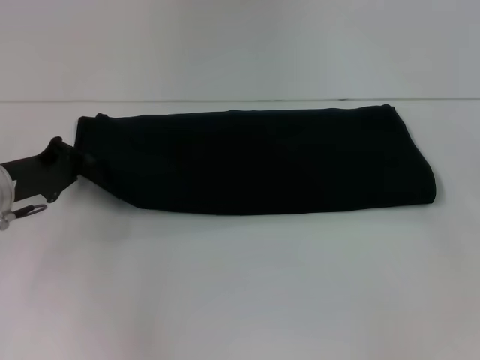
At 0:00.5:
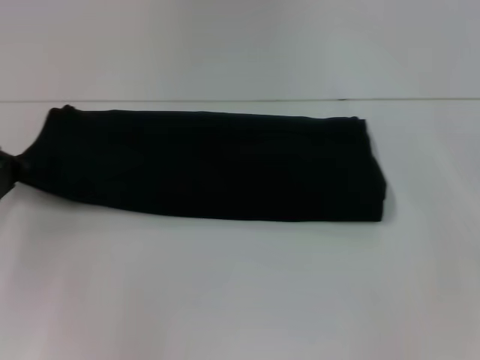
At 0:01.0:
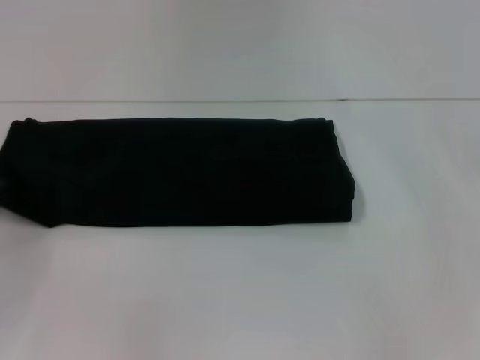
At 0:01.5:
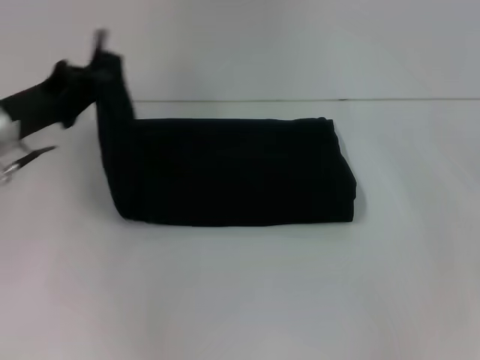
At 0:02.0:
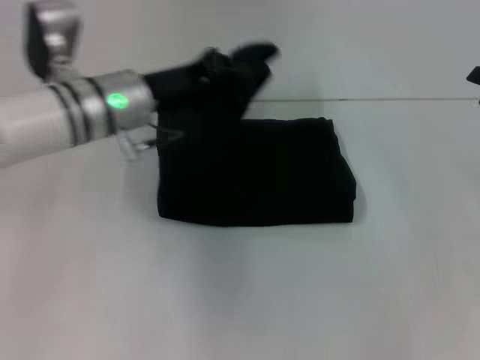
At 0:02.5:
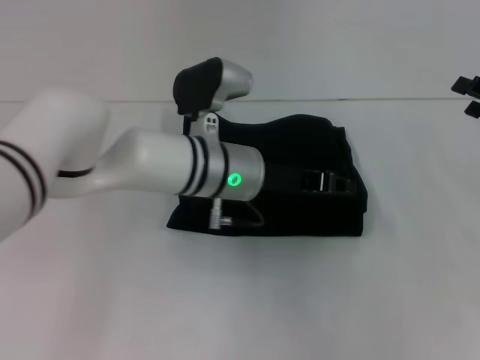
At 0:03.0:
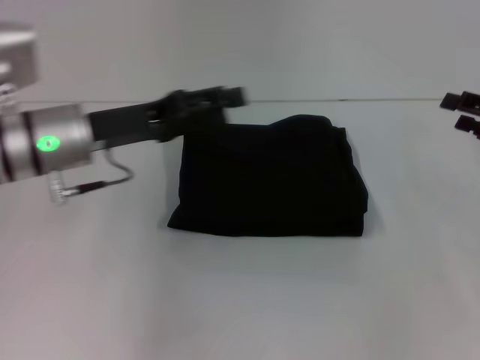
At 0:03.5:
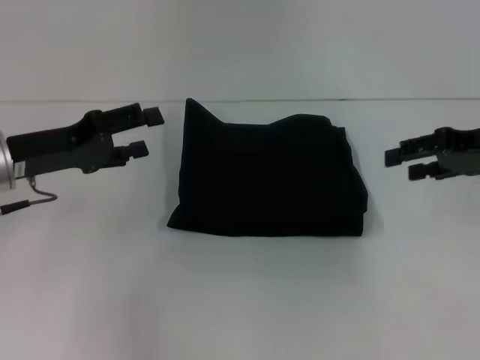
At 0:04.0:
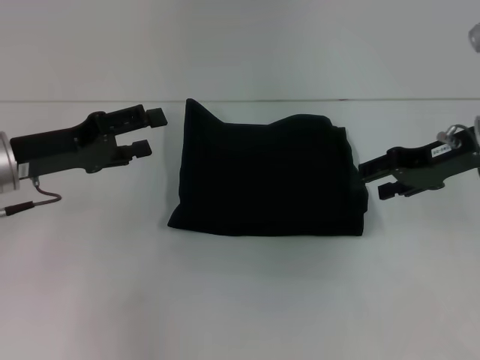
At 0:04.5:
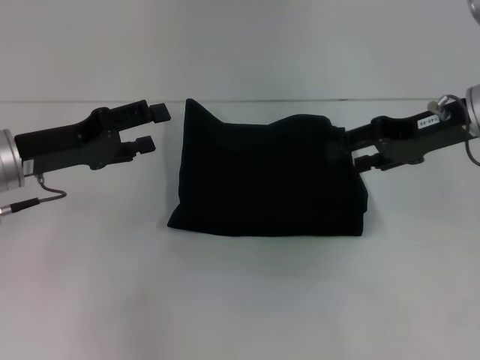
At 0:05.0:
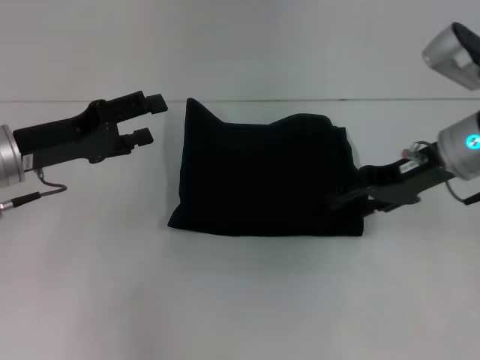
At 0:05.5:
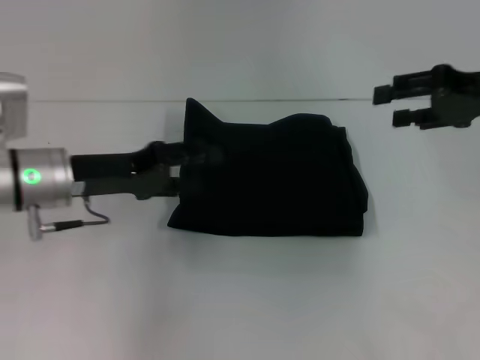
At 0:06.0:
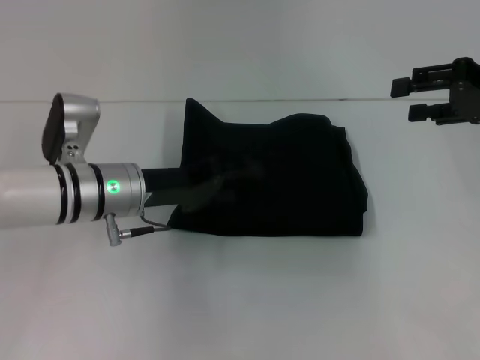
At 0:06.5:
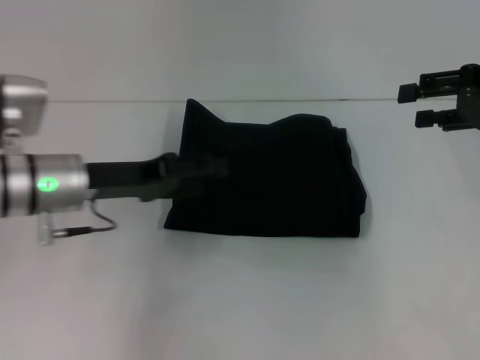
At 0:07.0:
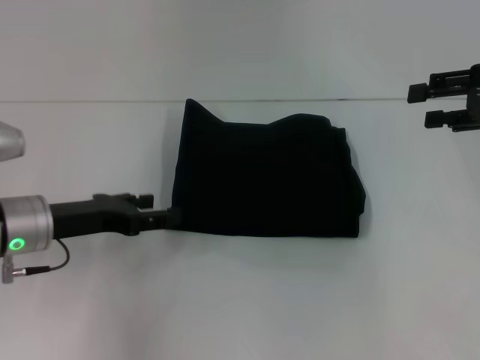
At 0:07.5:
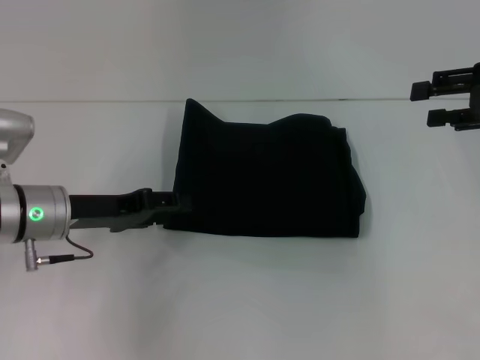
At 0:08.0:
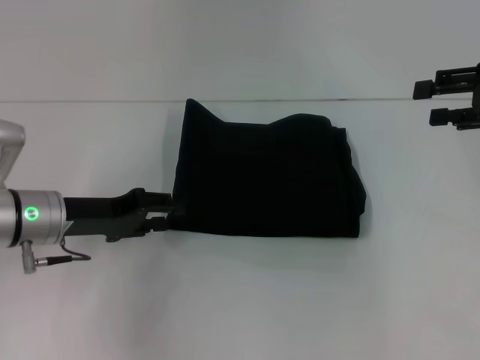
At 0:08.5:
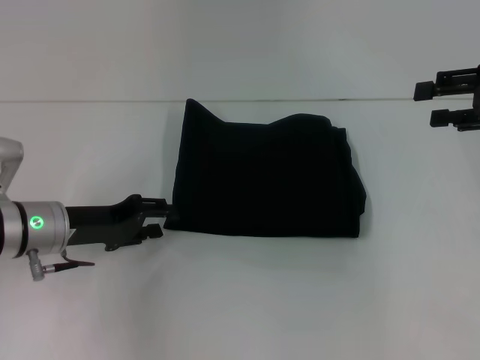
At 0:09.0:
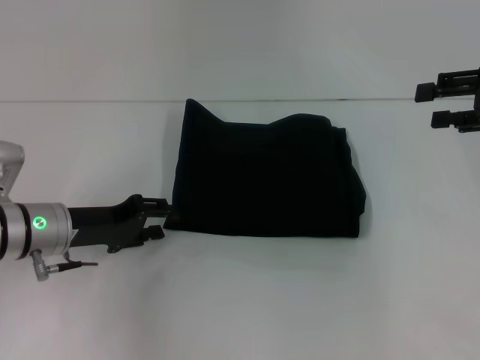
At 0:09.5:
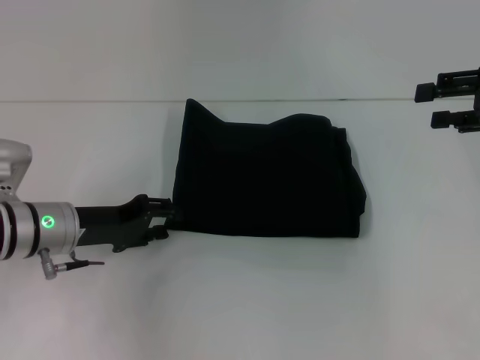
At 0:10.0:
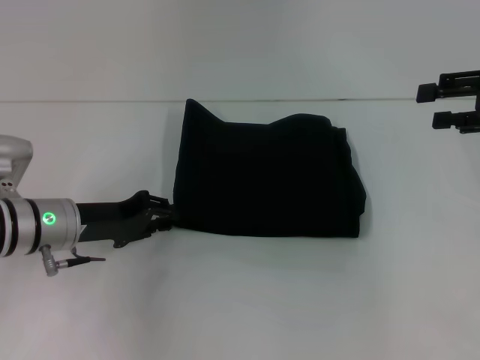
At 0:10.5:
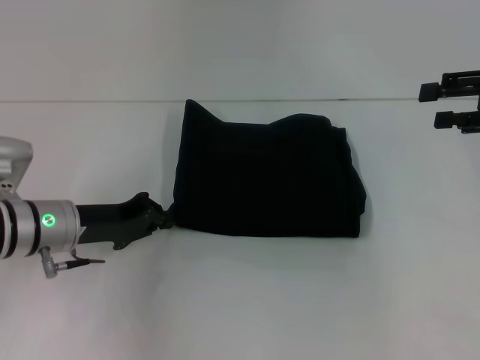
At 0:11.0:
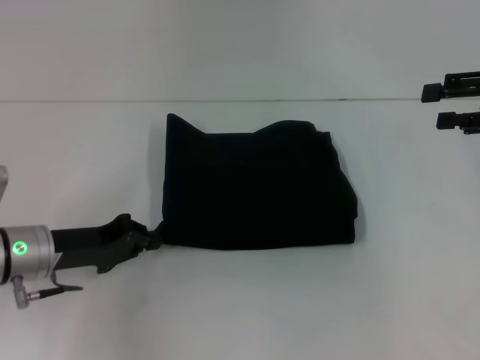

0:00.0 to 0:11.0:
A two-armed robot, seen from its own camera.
Step, 0:00.0 to 0:02.5: Fold the clothes with your left hand.
0:00.0 to 0:02.0: The left gripper travels to the right and upward by about 15 cm.
0:02.0 to 0:03.5: The right gripper heads to the left, covering approximately 5 cm. The left gripper goes about 15 cm to the left and backward, and opens.
0:03.5 to 0:05.5: The right gripper goes to the left and returns, approximately 10 cm each way.
0:05.5 to 0:07.5: The left gripper reaches roughly 5 cm to the right, then returns.
0:07.5 to 0:09.0: The grippers stay close to where they were, moving slightly.
0:09.0 to 0:11.0: The left gripper closes its fingers.

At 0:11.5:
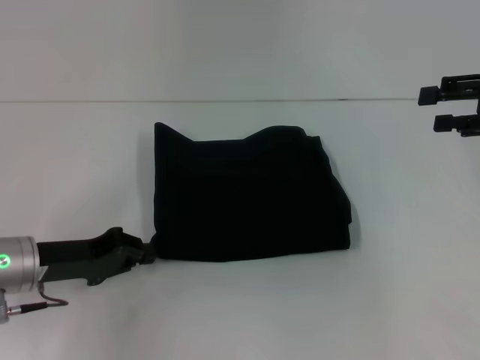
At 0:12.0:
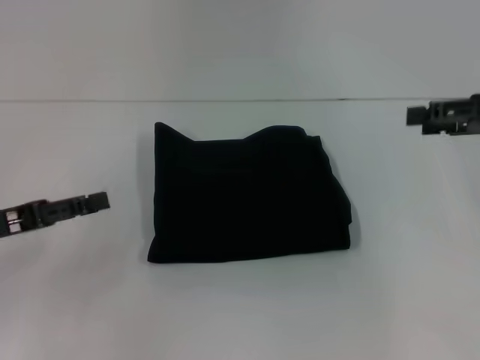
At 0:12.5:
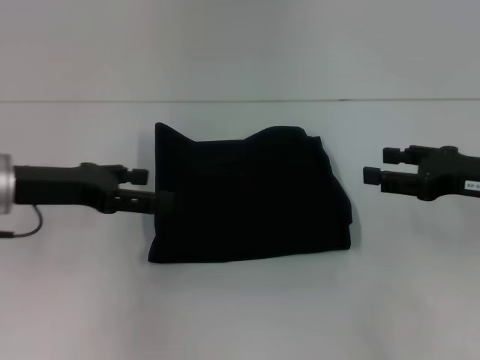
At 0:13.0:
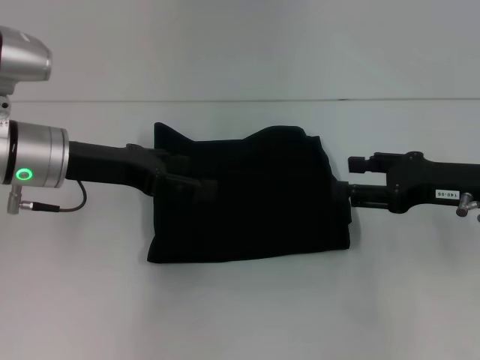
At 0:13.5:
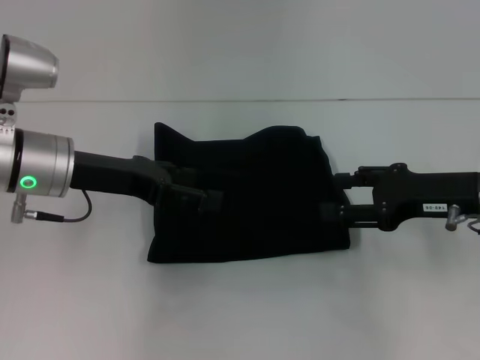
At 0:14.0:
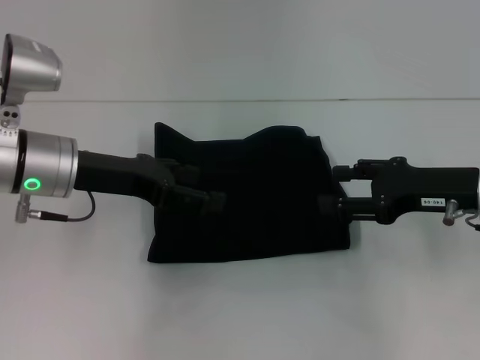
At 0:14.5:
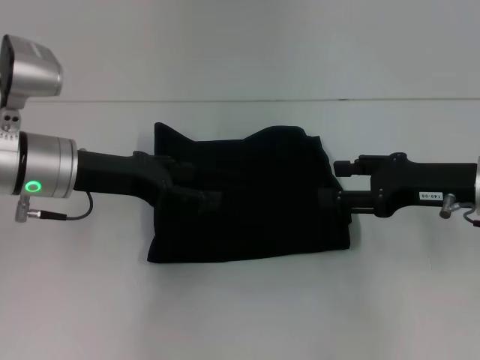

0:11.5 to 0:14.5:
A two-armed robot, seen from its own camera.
0:11.5 to 0:13.0: The left gripper heads upward and forward, covering approximately 10 cm, and opens. The right gripper heads downward and to the left, covering roughly 10 cm.
0:13.0 to 0:14.5: The grippers stay close to where they were, moving slightly.

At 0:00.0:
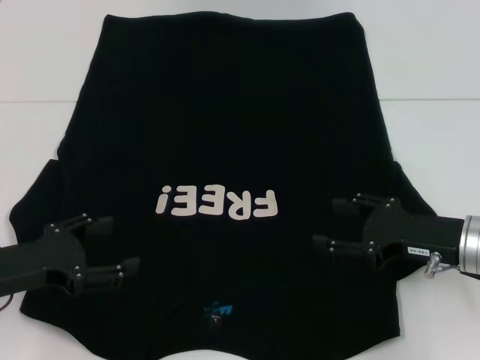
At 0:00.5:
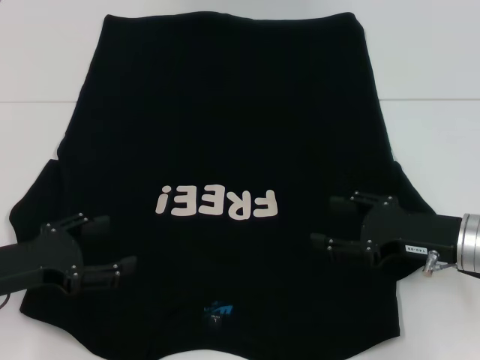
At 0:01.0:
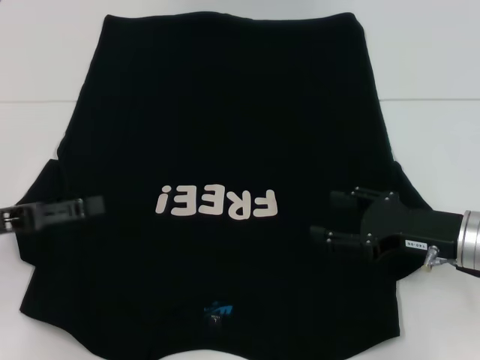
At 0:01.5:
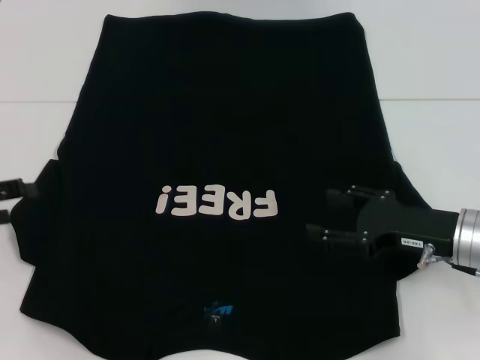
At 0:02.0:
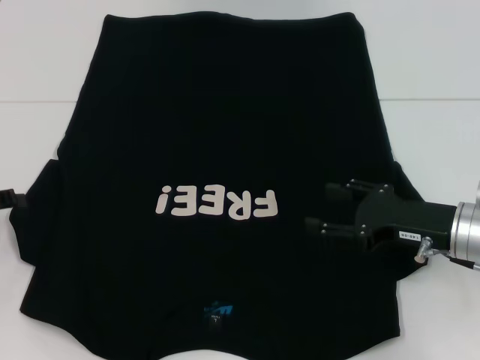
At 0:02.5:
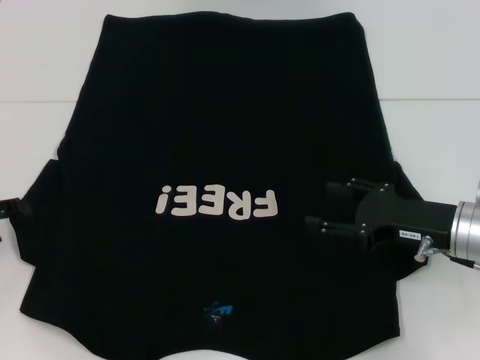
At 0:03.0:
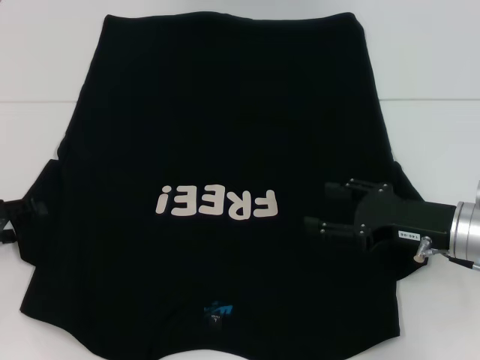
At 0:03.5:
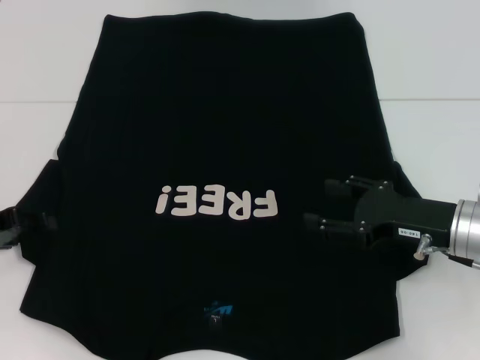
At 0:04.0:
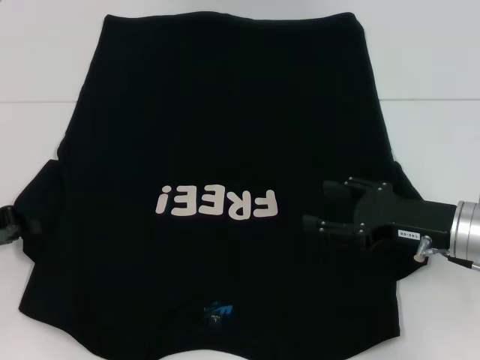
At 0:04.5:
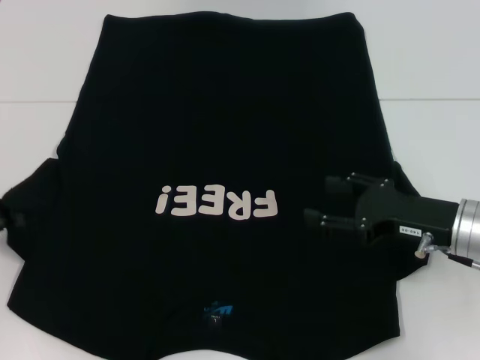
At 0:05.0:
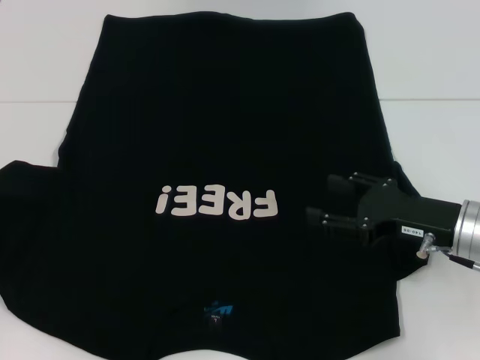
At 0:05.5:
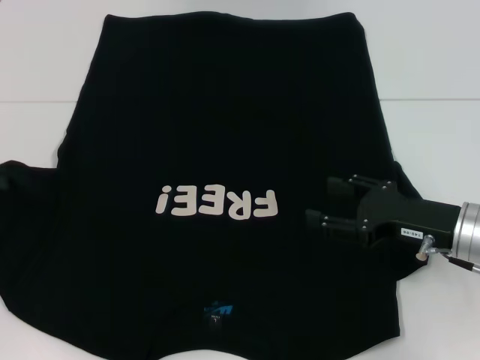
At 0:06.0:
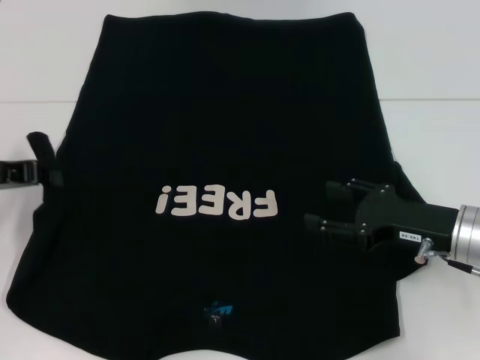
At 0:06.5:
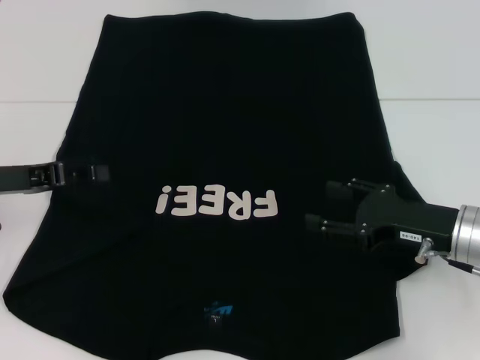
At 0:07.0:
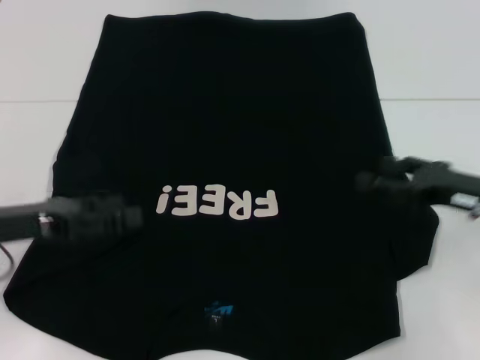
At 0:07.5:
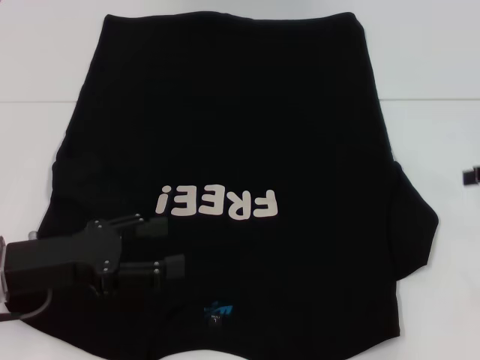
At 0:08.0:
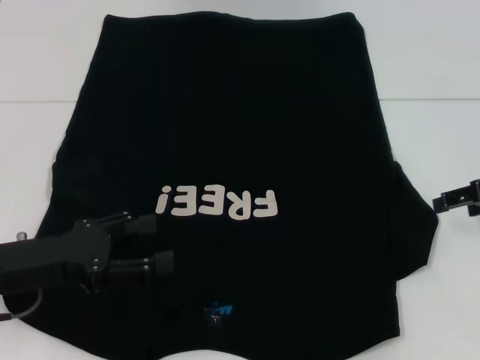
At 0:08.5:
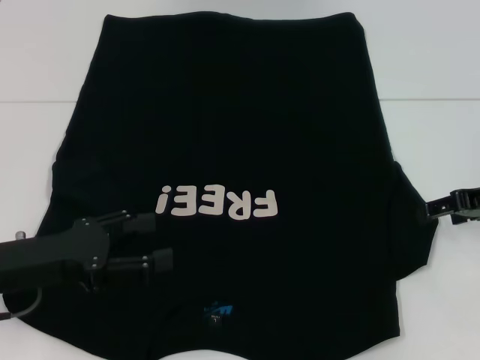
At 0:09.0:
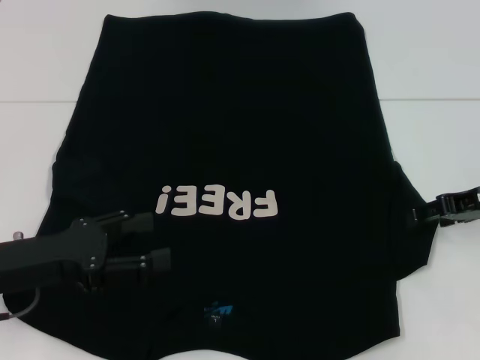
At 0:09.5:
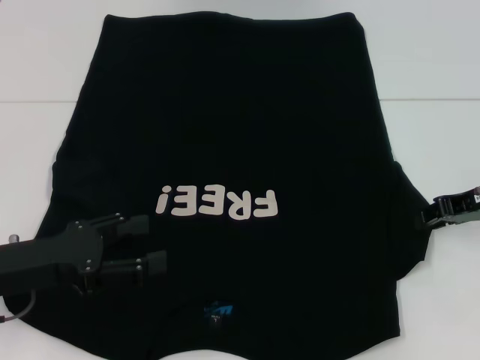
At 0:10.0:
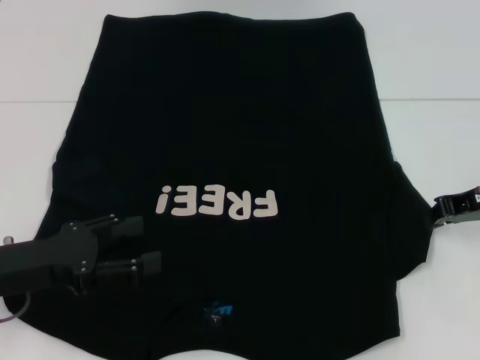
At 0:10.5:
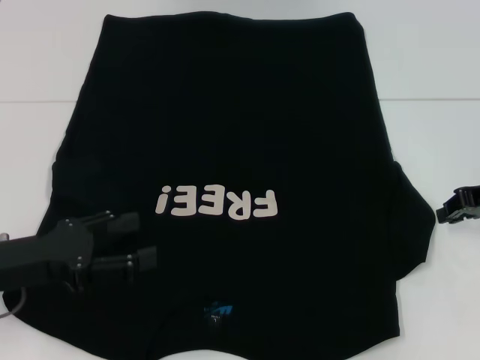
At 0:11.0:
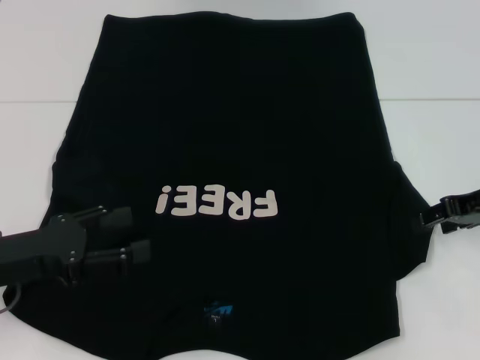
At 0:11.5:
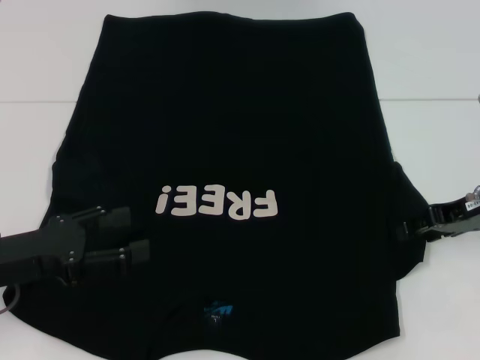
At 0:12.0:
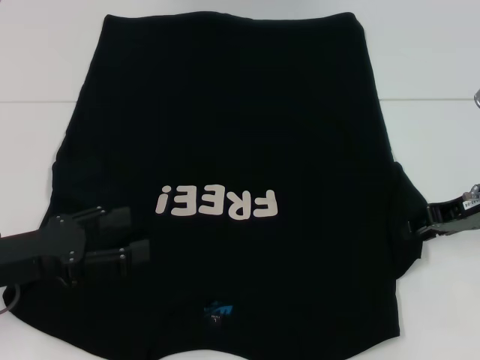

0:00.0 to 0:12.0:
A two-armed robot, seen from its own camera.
Step, 0:00.0 to 0:06.0: Fold the bottom left sleeve with your left hand.
0:00.0 to 0:02.0: The left gripper shifts about 10 cm to the left.
0:02.0 to 0:04.0: The left gripper closes up.
0:04.0 to 0:06.0: The left gripper goes about 5 cm upward.
0:06.0 to 0:08.0: The right gripper is displaced to the right, upward and forward by approximately 15 cm, while the left gripper is displaced backward, to the right and downward by about 10 cm, and opens its fingers.
0:08.0 to 0:10.0: The right gripper closes up.
0:10.0 to 0:12.0: The right gripper opens up.
